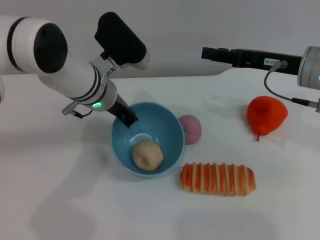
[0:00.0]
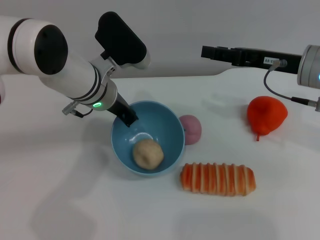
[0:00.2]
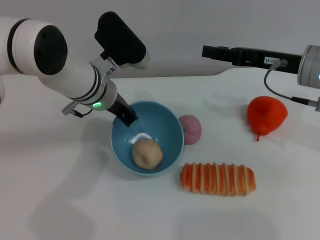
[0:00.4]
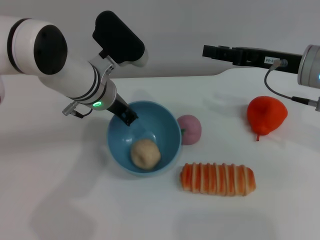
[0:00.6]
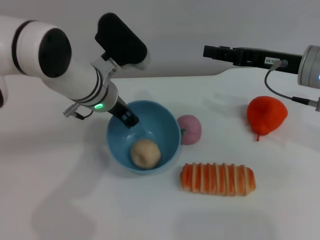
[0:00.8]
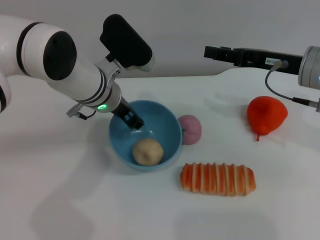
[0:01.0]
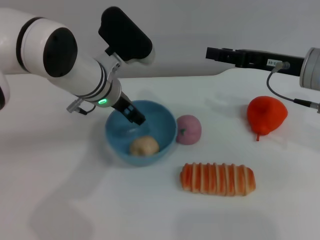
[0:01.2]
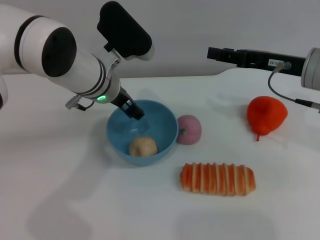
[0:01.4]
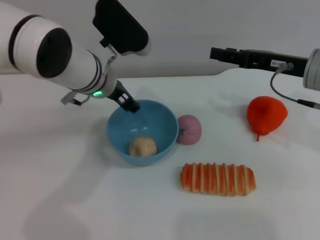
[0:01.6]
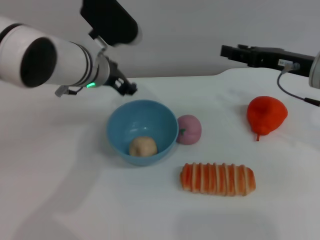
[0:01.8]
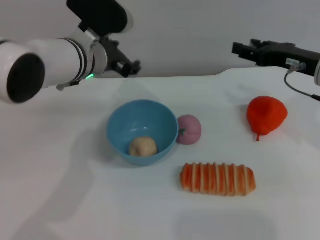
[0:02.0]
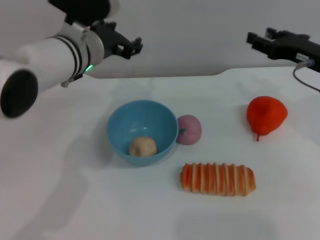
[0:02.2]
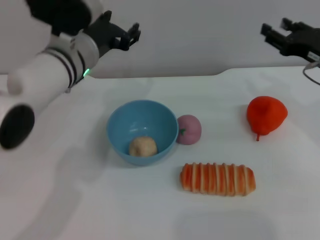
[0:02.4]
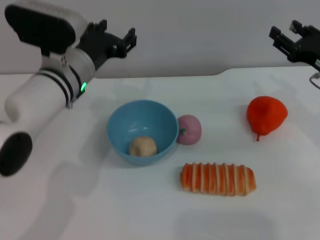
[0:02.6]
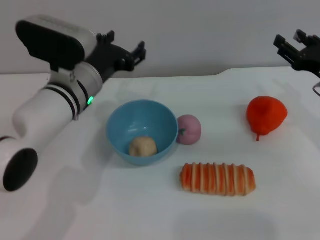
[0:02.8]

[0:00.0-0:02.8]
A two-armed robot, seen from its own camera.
Task of the whole recording: put the egg yolk pastry into the blue bowl and pour it out repeatedly.
Step, 0:00.0 to 0:01.8: Place the bowl on the table.
0:00.0 to 0:01.4: The left gripper opens.
0:01.4 to 0:02.8: The right gripper is displaced to the right and downward by approximately 10 cm; the left gripper moves about 5 cm.

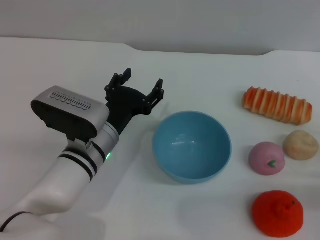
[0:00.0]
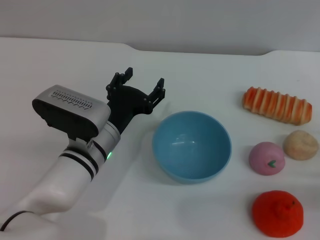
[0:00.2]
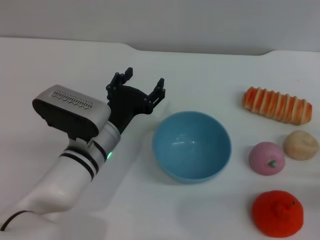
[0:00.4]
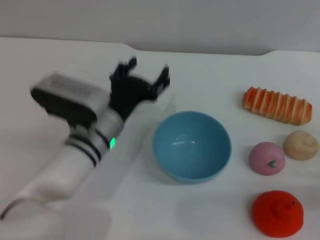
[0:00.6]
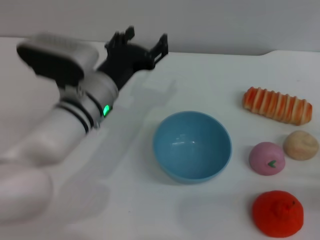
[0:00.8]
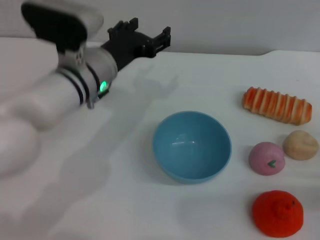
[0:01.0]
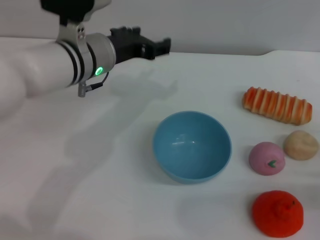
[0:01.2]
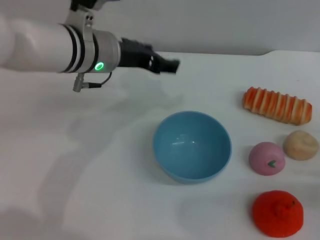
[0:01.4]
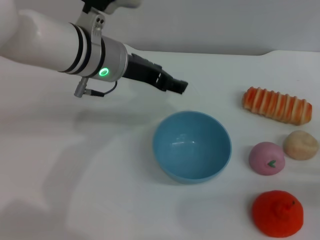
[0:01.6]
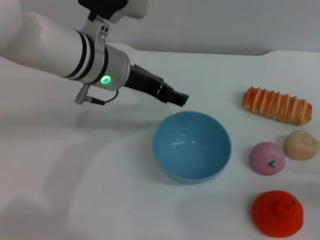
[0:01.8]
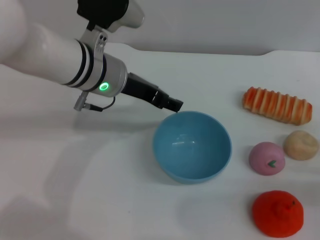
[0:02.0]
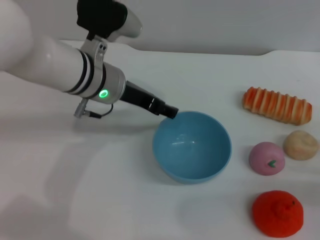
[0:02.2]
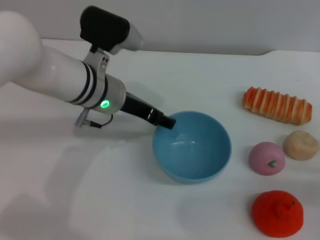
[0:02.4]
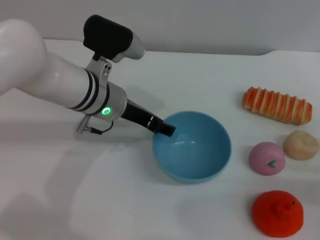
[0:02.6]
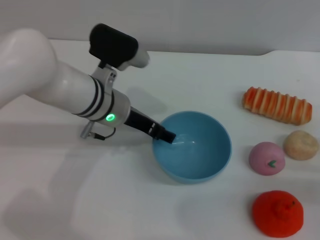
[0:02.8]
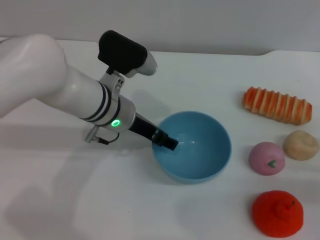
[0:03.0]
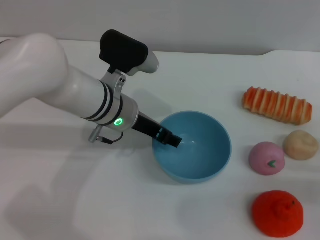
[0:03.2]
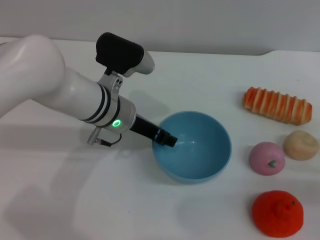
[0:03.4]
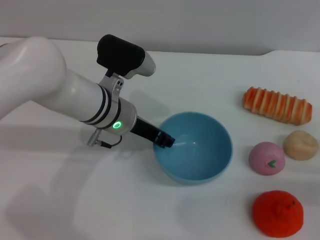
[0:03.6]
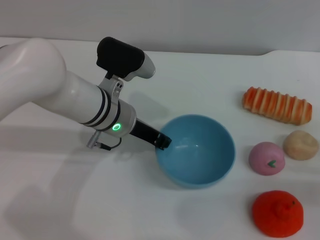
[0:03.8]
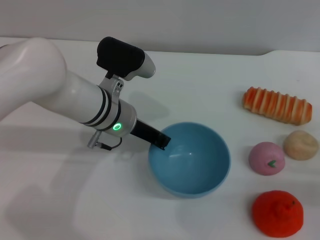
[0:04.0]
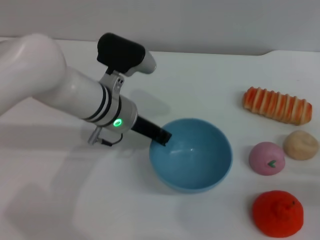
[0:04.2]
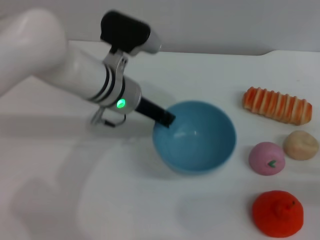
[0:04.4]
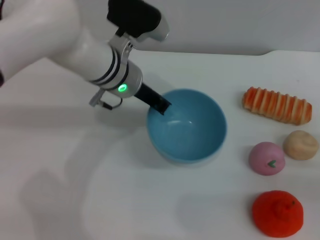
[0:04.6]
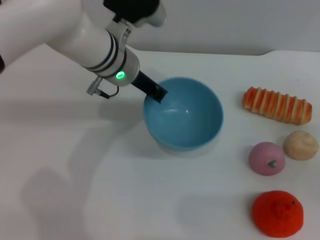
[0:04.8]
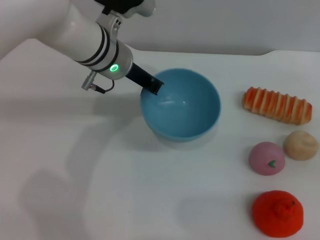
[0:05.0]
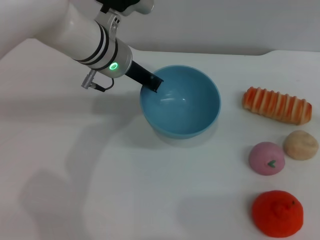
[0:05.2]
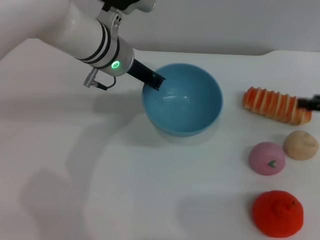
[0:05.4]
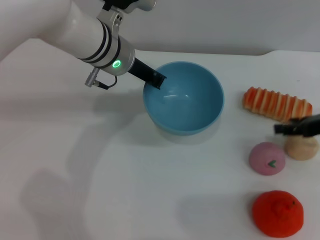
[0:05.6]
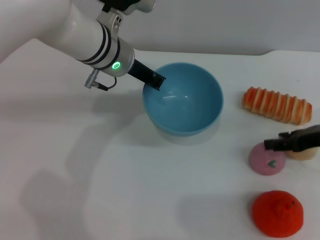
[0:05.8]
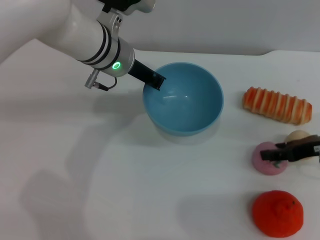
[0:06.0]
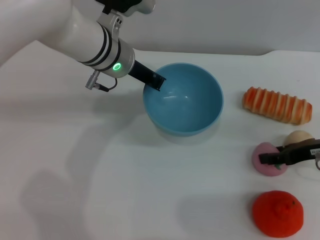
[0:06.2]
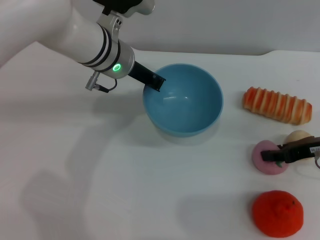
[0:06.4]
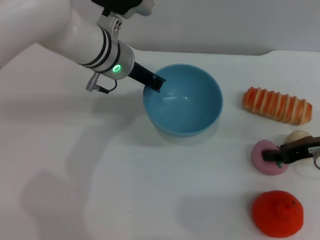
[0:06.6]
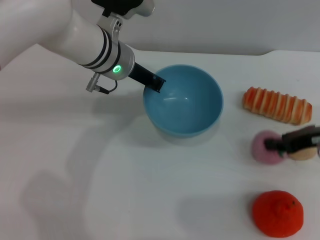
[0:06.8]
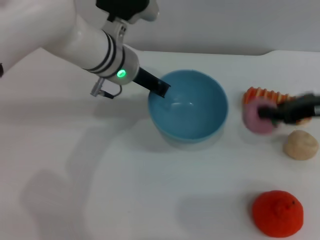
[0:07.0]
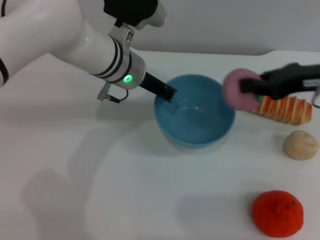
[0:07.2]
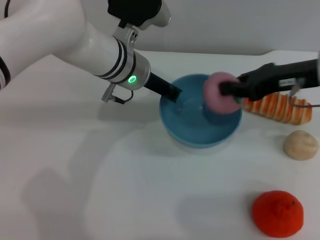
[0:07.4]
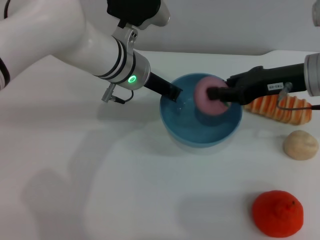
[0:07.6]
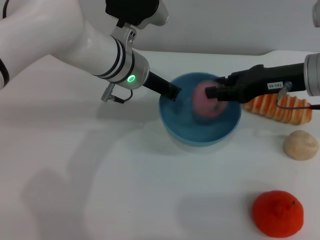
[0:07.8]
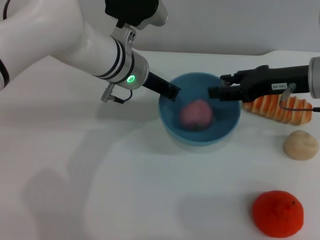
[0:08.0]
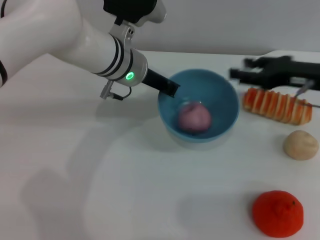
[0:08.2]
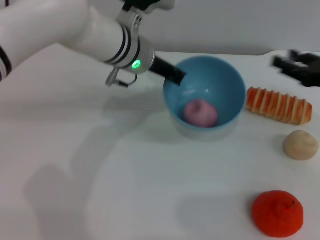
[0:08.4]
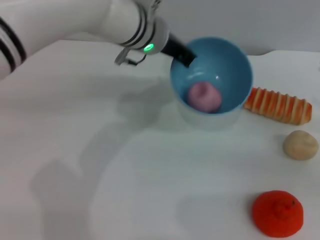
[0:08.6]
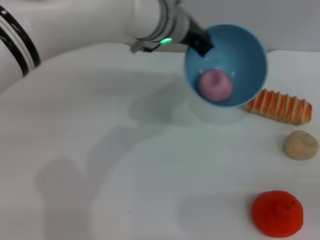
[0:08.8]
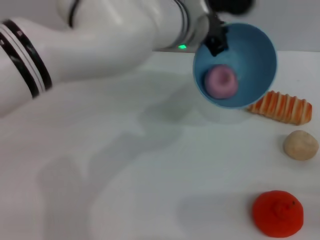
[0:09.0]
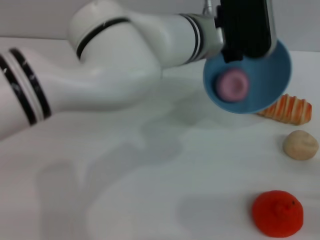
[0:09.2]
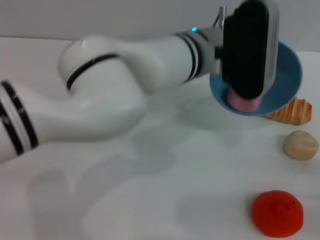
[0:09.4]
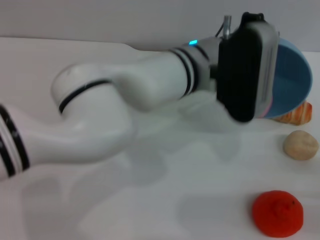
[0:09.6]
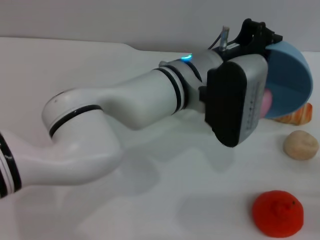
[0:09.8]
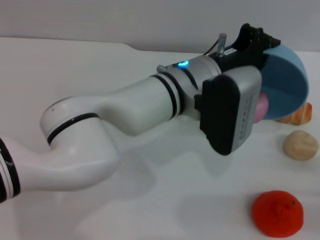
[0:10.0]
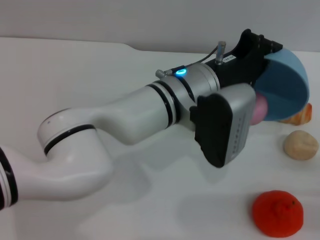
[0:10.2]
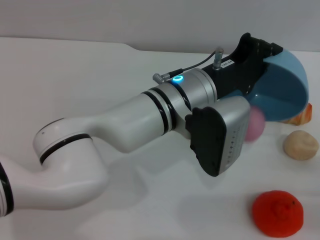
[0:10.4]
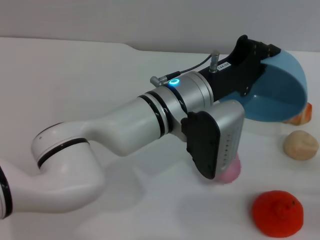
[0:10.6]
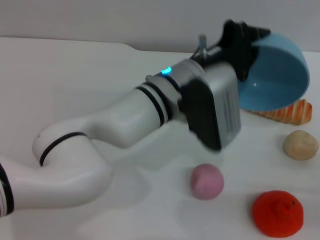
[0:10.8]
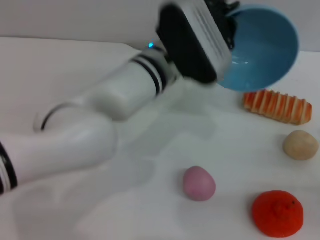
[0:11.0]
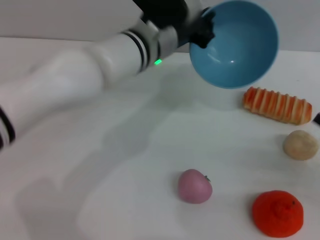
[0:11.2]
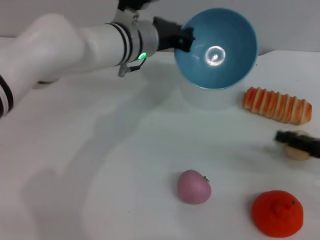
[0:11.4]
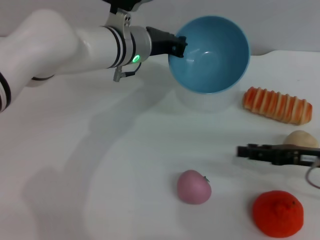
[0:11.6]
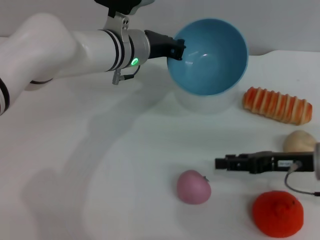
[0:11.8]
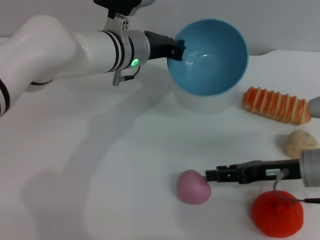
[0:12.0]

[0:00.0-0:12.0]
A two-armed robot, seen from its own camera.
Task of the whole recording: put the peach into the blue bowl and pour it out repeatedly.
Step, 0:00.0 to 0:04.6: Pick up the bowl with the left gripper.
Step, 0:04.8 to 0:06.8: Pick up the peach with the right gripper.
Step, 0:07.2 to 0:07.8: Place the peach into the bowl.
Step, 0:08.2 to 0:10.6: Pour the peach out of bowl.
0:00.0 to 0:01.6: The left gripper travels upward and forward by some 15 cm.
0:01.6 to 0:03.0: The left gripper moves downward, roughly 10 cm.
0:03.0 to 0:04.4: The left gripper closes.
0:04.4 to 0:06.0: The right gripper travels forward and upward by some 10 cm.
0:06.0 to 0:07.6: The right gripper goes some 10 cm upward and to the left, and closes up.
0:07.6 to 0:09.0: The right gripper is displaced backward, to the right and downward by some 25 cm, and opens up, while the left gripper moves to the right and upward, roughly 10 cm.
0:09.0 to 0:10.4: The left gripper moves backward and downward, about 10 cm.
0:10.4 to 0:12.0: The left gripper shifts roughly 15 cm forward and to the left, while the right gripper is displaced to the left and forward by about 15 cm.

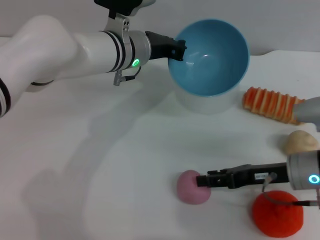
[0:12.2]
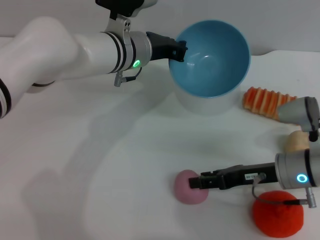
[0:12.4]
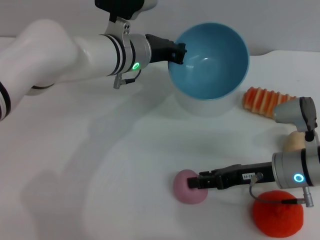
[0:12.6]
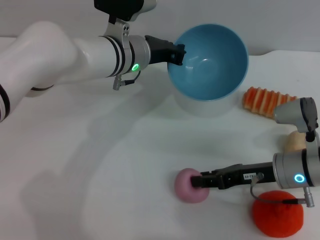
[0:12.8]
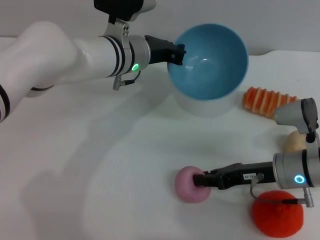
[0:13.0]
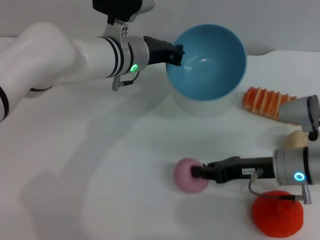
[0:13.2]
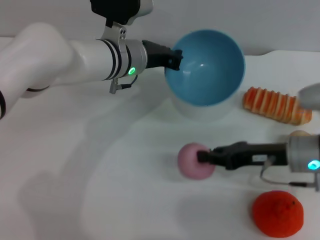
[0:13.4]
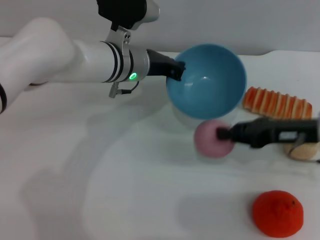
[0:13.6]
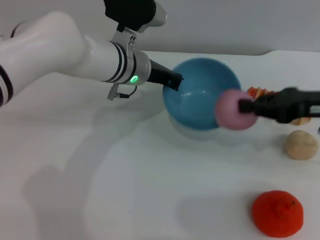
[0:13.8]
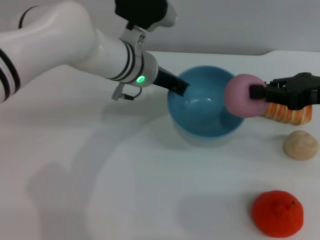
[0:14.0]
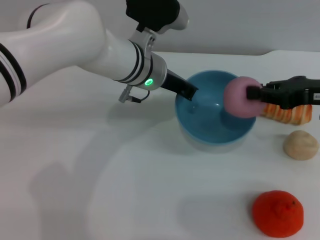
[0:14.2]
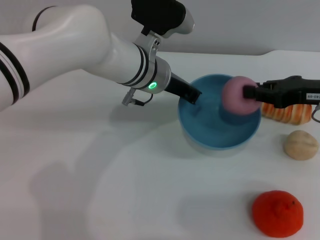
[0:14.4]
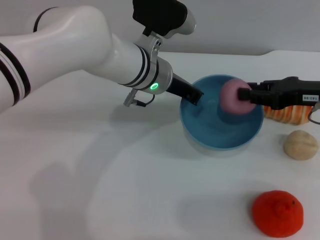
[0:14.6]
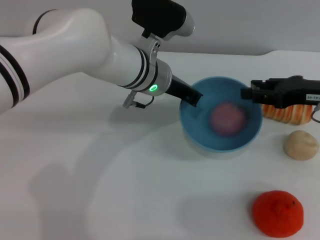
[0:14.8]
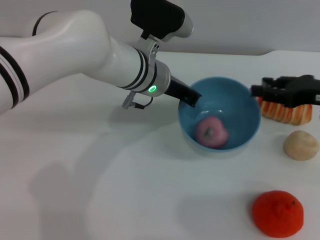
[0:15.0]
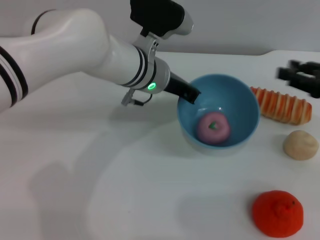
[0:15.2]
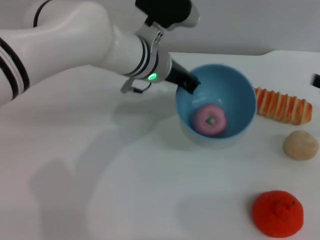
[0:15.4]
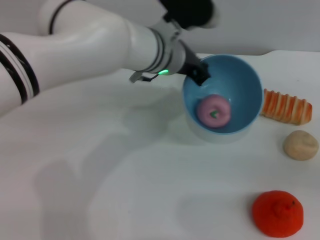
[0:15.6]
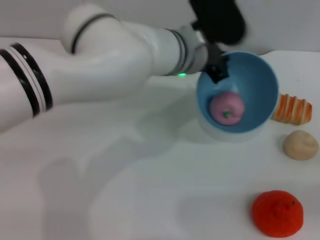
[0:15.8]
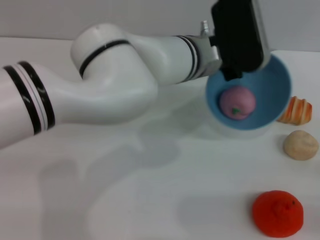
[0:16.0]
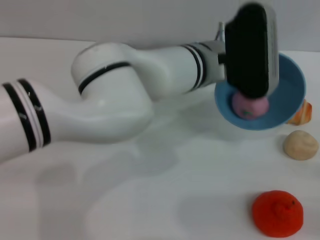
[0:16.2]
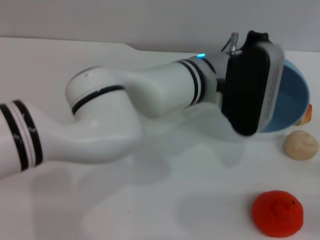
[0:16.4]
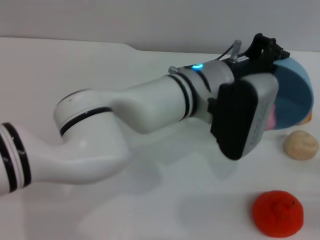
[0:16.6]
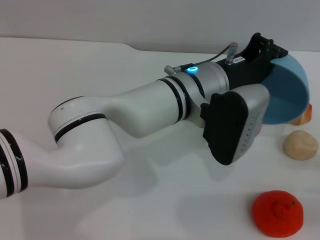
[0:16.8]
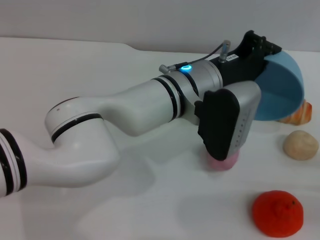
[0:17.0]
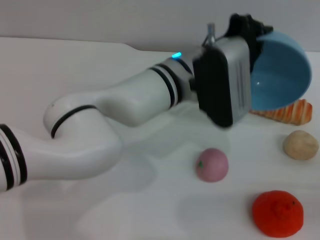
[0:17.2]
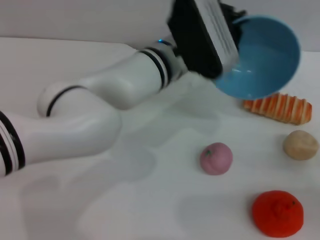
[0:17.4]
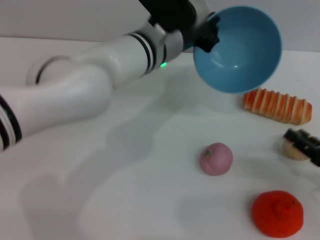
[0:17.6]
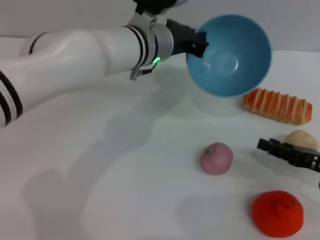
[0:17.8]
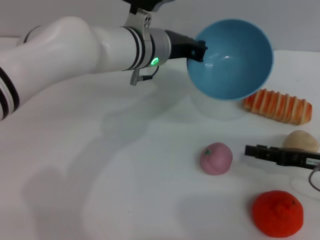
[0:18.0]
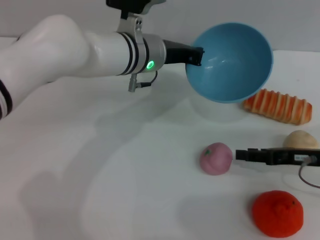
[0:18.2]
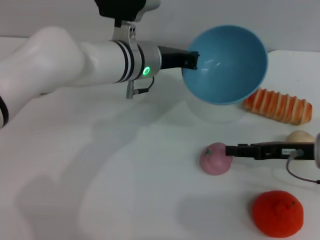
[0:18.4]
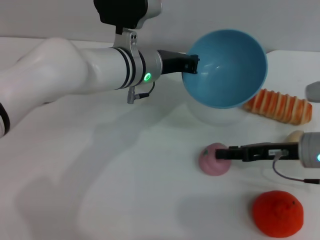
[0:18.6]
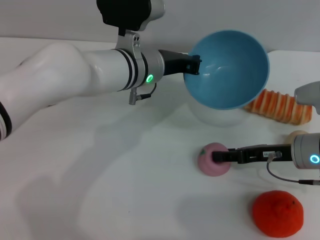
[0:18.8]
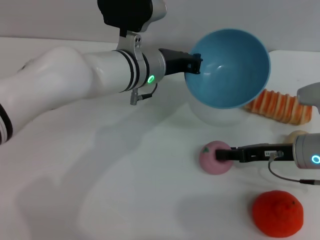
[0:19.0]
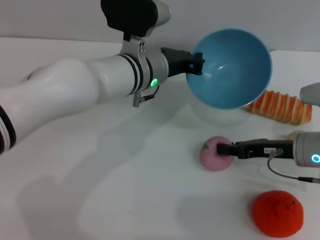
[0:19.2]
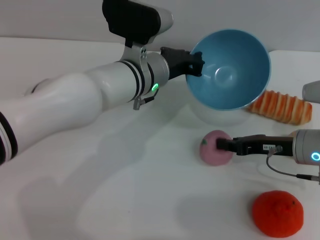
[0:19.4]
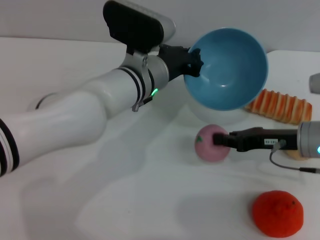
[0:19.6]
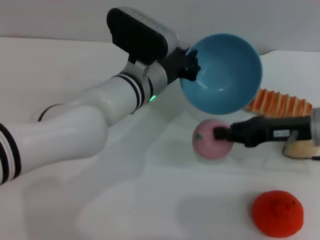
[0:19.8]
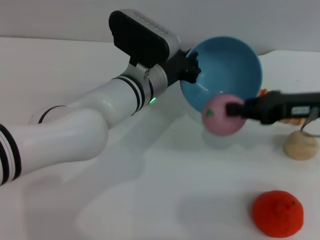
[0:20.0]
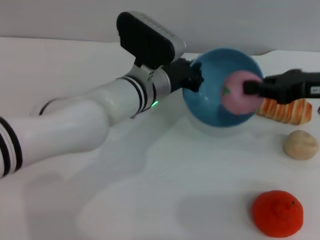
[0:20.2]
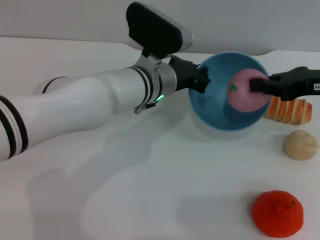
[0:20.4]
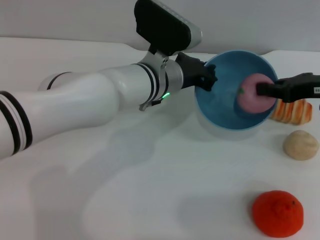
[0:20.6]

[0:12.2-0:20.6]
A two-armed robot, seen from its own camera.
Task of the whole recording: put the peach into the blue bowl and pour it out repeatedly.
Step, 0:13.6 to 0:15.0: Place the peach into the bowl.
Step, 0:15.2 to 0:17.0: Pour the peach out of bowl.
Step, 0:17.2 to 0:19.8: Pick up the peach with the right gripper.
0:12.2 to 0:13.6: The right gripper moves upward, some 5 cm, and closes.
0:13.6 to 0:15.0: The right gripper moves approximately 5 cm, and opens up.
0:15.0 to 0:16.4: The right gripper shifts some 20 cm backward, to the right and downward. Meanwhile the left gripper heads to the right, covering roughly 10 cm.
0:16.4 to 0:17.8: The two grippers go roughly 10 cm to the left and forward.
0:17.8 to 0:19.2: The right gripper moves to the left and forward, some 10 cm.
0:19.2 to 0:20.6: The right gripper heads upward, covering about 10 cm, and closes up.
